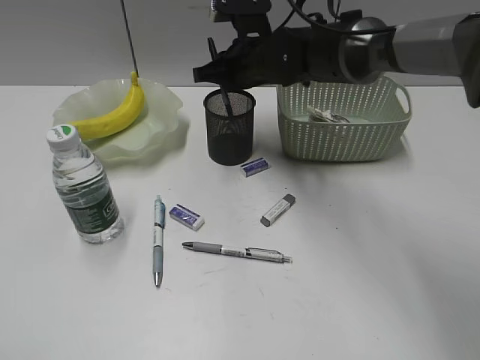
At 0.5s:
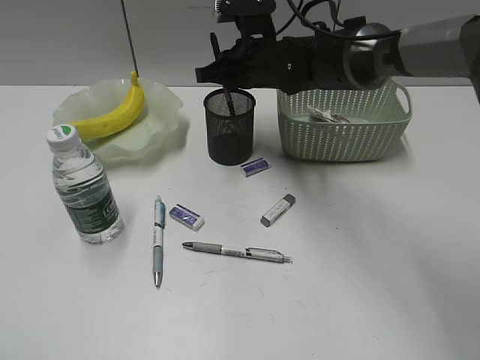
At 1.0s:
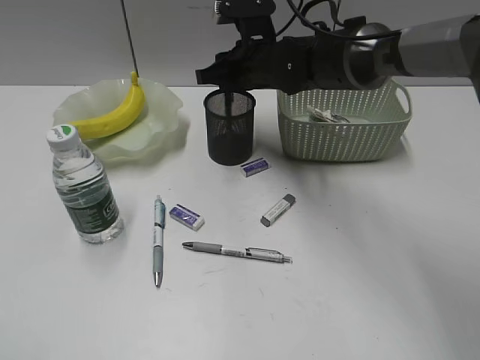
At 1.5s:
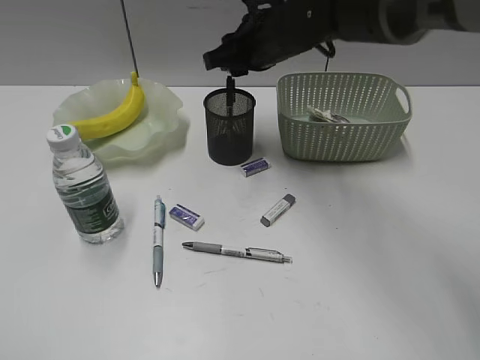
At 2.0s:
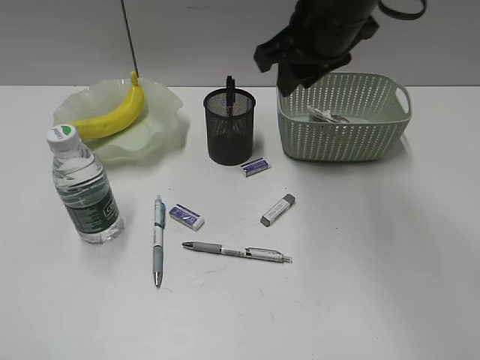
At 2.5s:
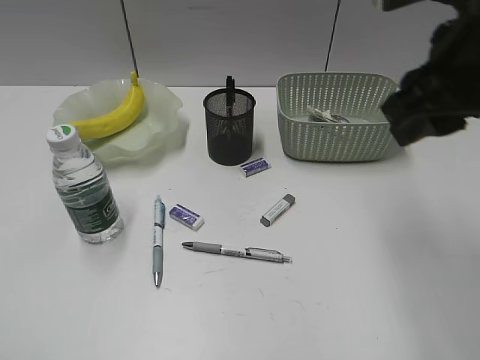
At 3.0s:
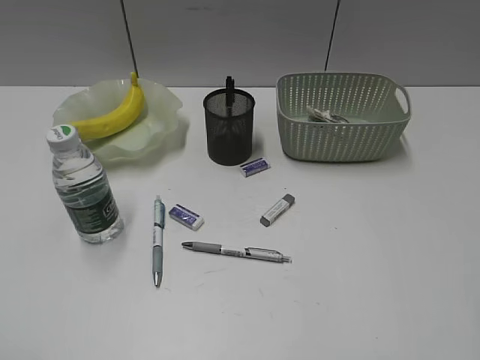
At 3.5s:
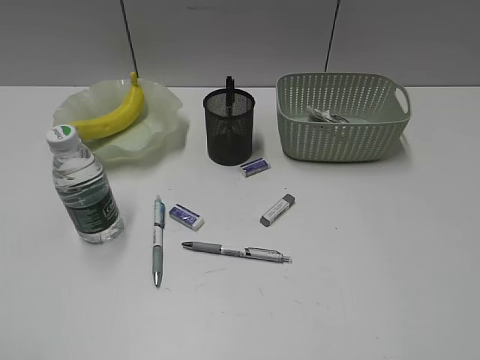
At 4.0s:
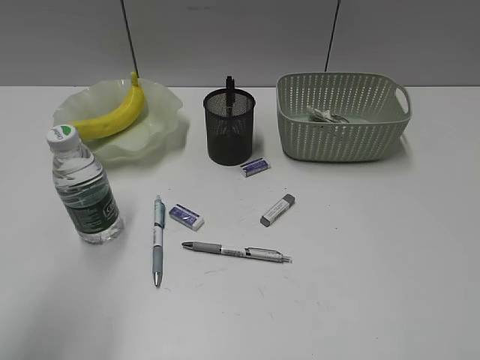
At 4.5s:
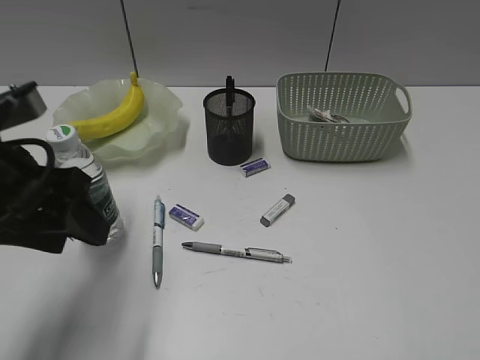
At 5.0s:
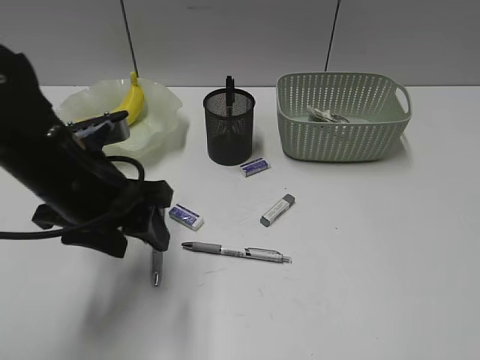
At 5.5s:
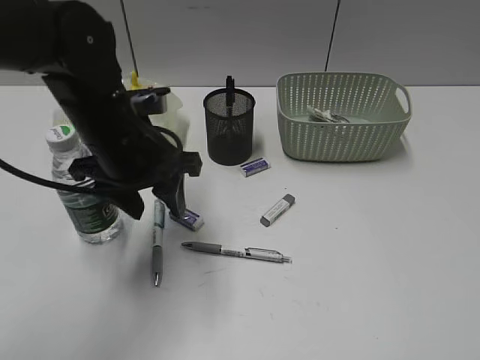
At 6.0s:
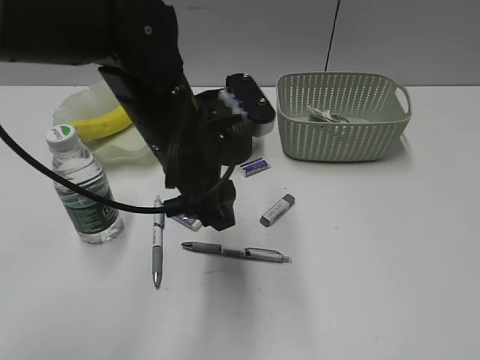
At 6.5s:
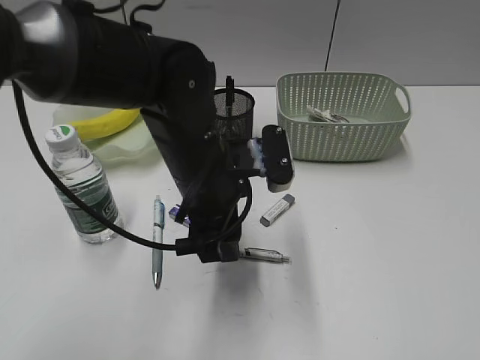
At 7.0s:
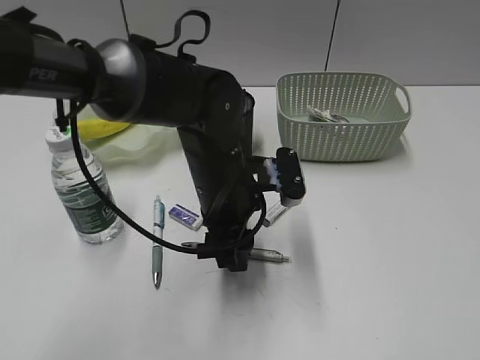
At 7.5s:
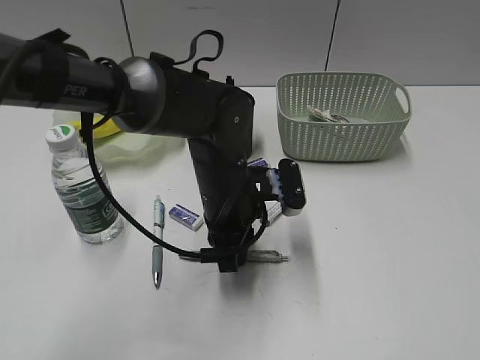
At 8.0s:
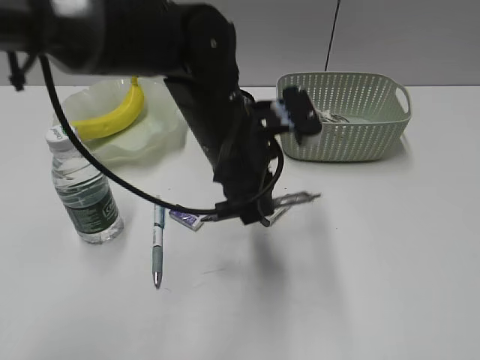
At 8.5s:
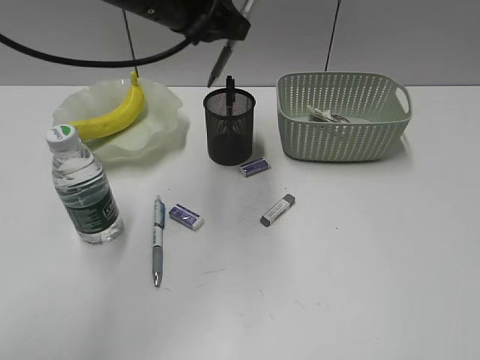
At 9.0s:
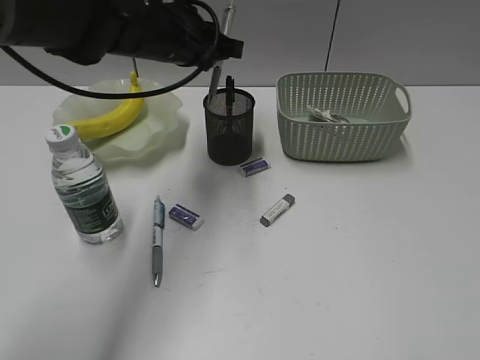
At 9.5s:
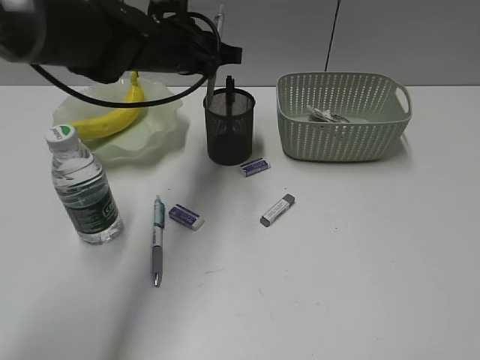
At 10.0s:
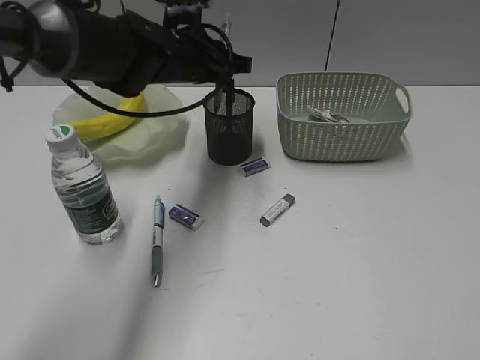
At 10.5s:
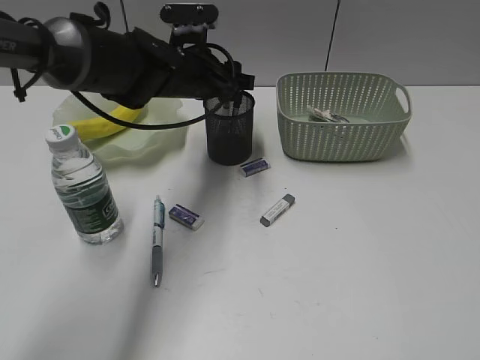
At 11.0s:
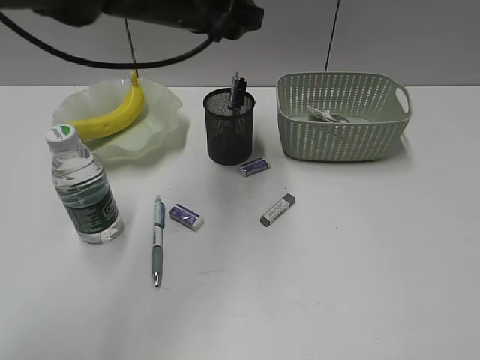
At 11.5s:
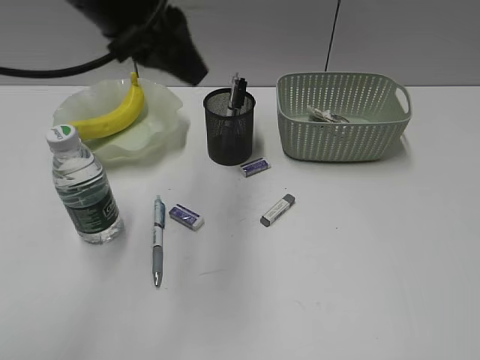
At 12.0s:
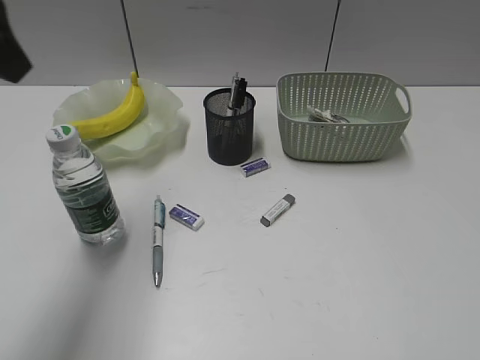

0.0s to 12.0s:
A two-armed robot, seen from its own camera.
Step, 1.5s to 7.5s: Grasp the gray pen with left gripper.
Step, 8.0s to 10.5s: Place the gray pen in pen holder with left gripper.
0.0s to 2.0s: The right gripper shifts some 15 cm upward, backward and to the right, and opens.
2.0s to 4.0s: The left gripper moves forward and to the right, approximately 10 cm. The right gripper heads backward and to the right, covering approximately 40 cm.
4.0s to 6.0s: The left gripper goes roughly 30 cm to the right, forward and downward.
6.0s to 8.0s: The left gripper travels downward and back again, about 10 cm each way, and closes its fingers.
8.0s to 10.0s: The left gripper is displaced forward and to the left by about 15 cm.
10.0s to 12.0s: The left gripper heads backward, upward and to the left, covering some 30 cm, and opens, then closes once more.

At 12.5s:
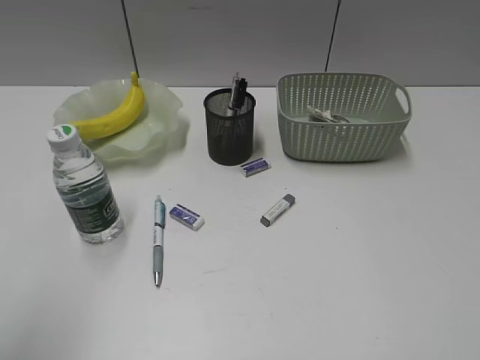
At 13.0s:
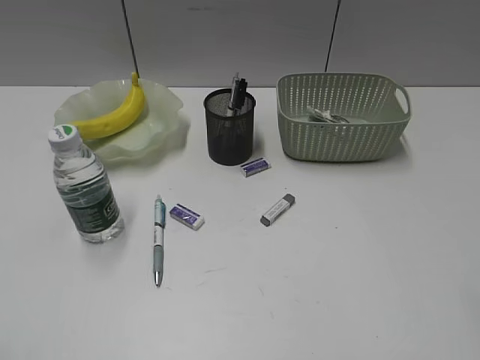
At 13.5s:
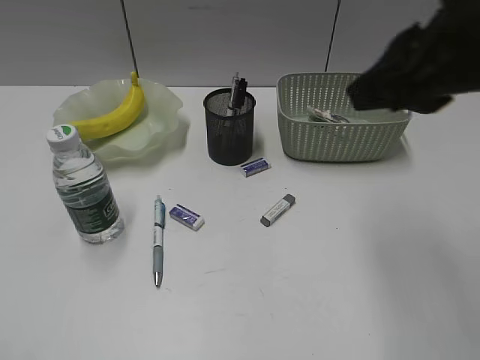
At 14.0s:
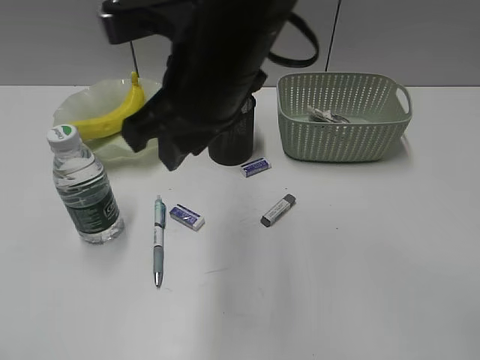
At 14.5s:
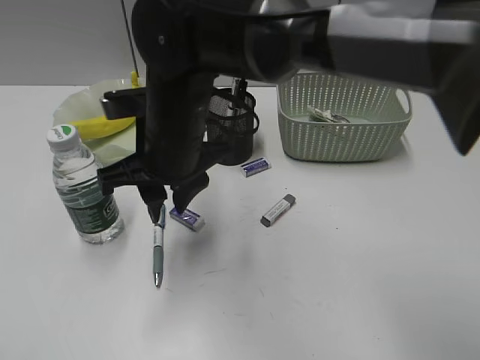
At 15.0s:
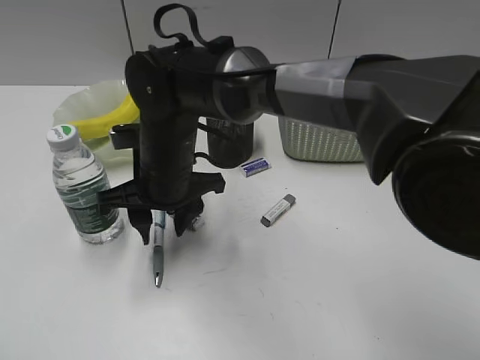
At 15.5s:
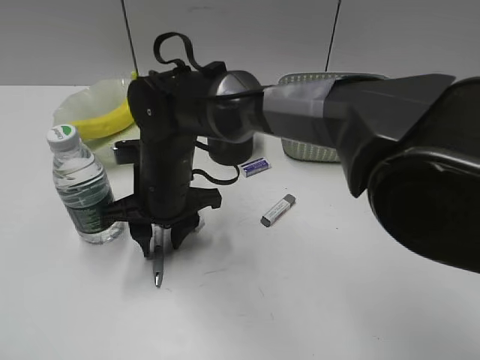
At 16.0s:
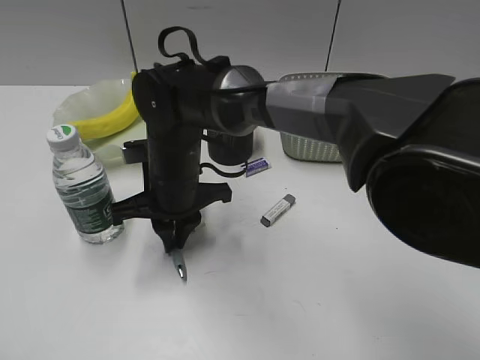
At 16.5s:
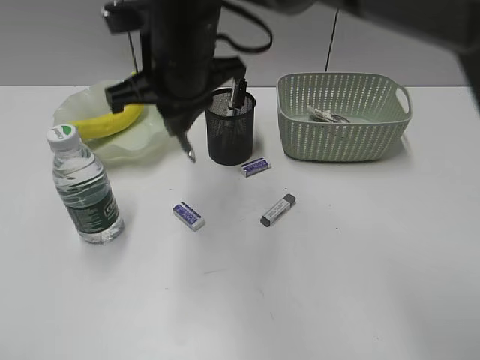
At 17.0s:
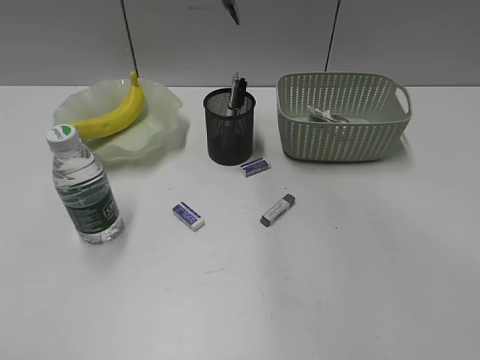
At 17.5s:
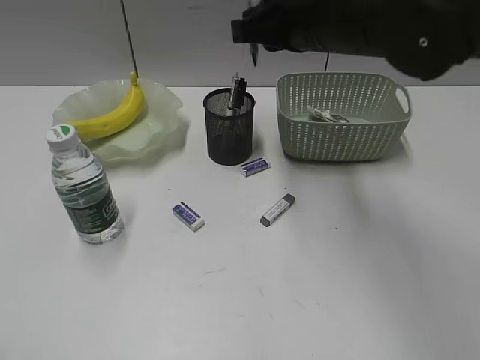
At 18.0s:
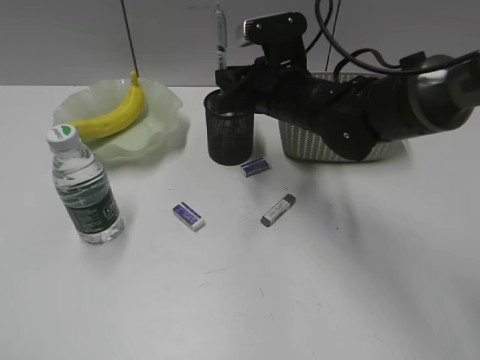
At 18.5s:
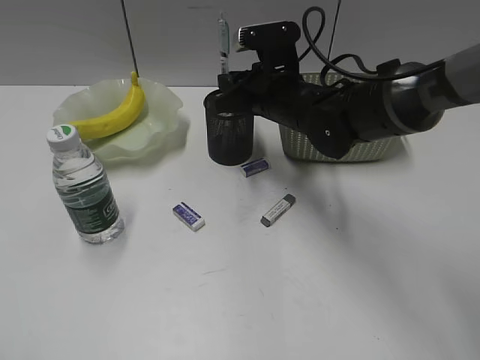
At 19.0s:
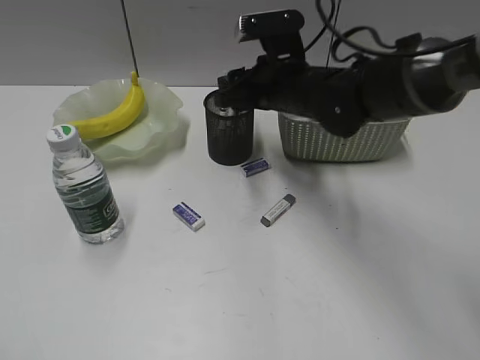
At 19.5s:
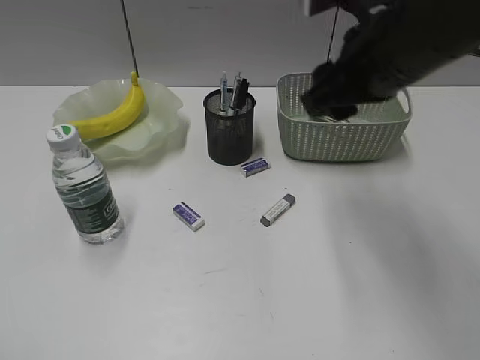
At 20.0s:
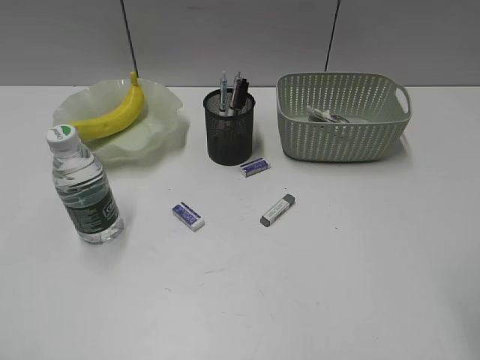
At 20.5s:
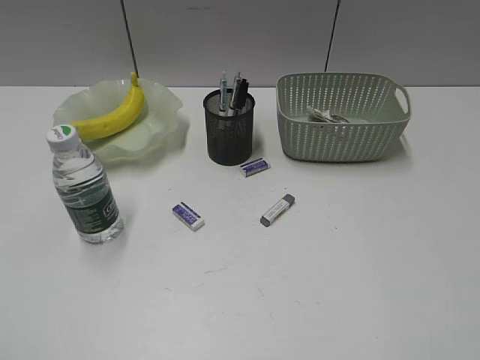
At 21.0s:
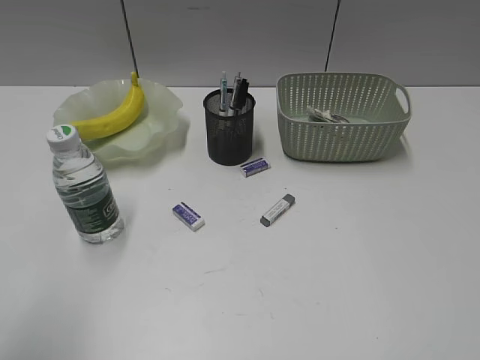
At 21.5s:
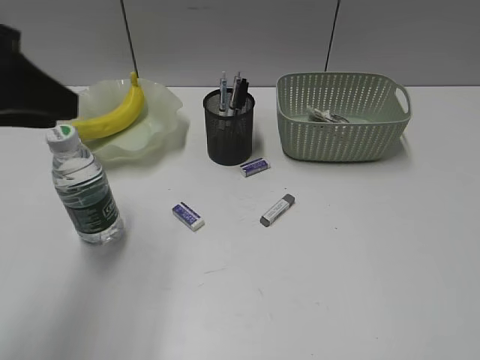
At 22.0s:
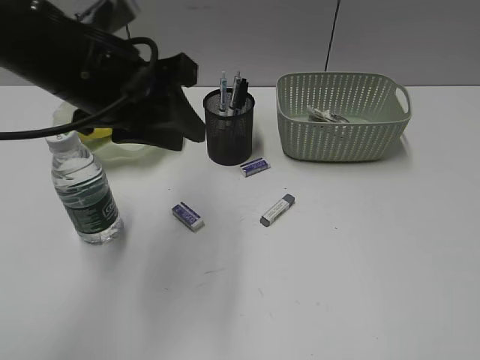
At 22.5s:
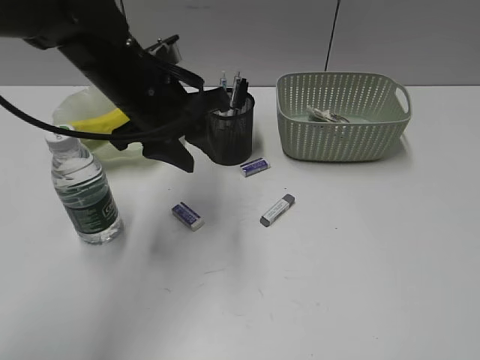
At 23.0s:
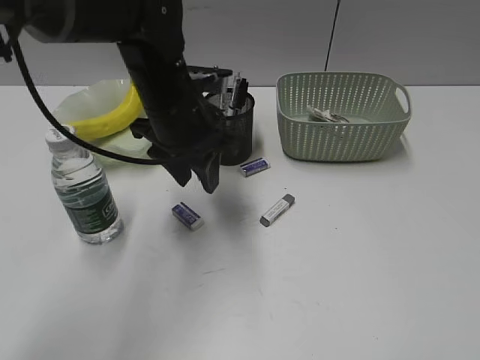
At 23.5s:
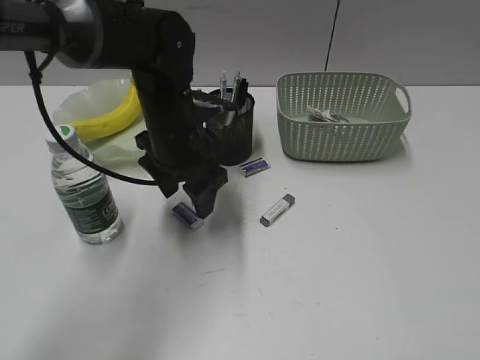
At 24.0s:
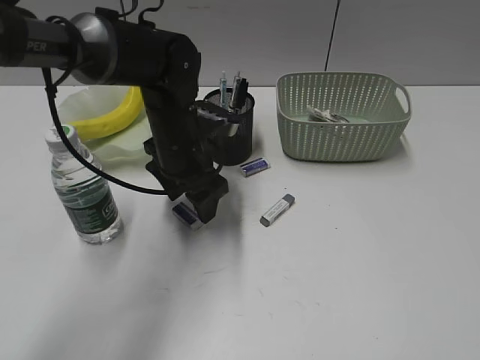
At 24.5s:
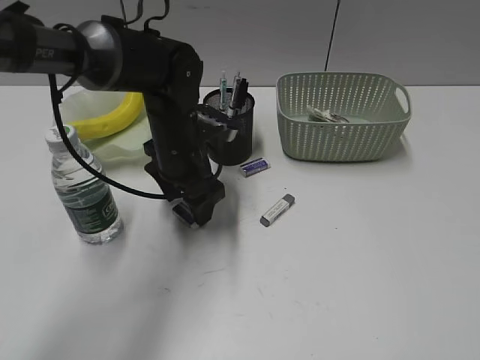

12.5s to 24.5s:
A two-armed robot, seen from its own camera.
Step, 12.5s to 15.5s: Grasp the blue pen with right gripper.
Step, 16.0s to 18.5s: Place the blue pen in pen holder with right gripper.
12.5s to 14.5s: The left gripper heads backward and downward, covering approximately 10 cm. The right gripper moves to the left and forward, approximately 50 cm.
14.5s to 16.5s: The right gripper heads upward, covering approximately 5 cm, and closes up.
16.5s to 18.5s: The right gripper goes roughly 15 cm to the right, downward and forward.
18.5s to 20.5s: The right gripper is displaced backward and to the right by about 40 cm, and opens up.
20.5s to 22.5s: The left gripper heads forward and to the right, covering some 40 cm.
22.5s to 24.5s: The left gripper travels downward by roughly 10 cm, and opens its fingers.

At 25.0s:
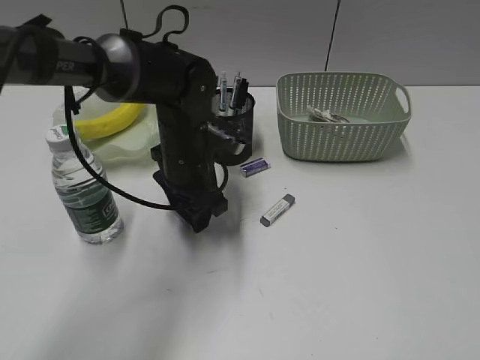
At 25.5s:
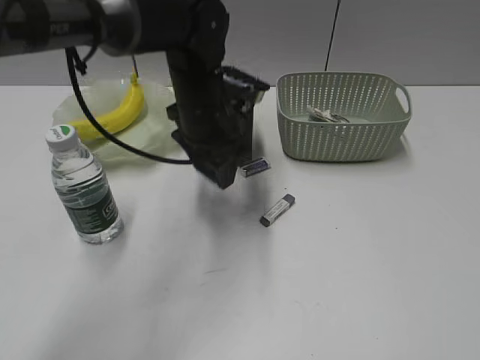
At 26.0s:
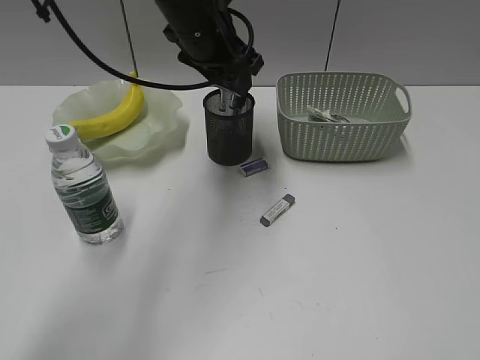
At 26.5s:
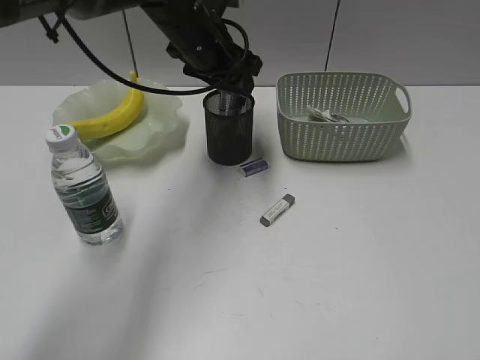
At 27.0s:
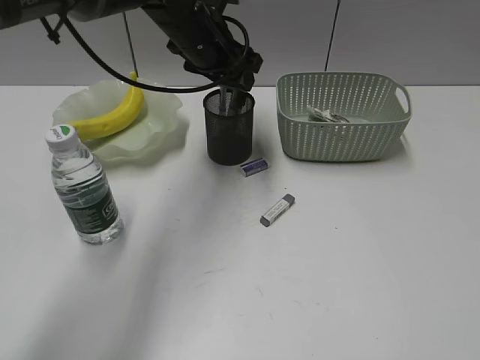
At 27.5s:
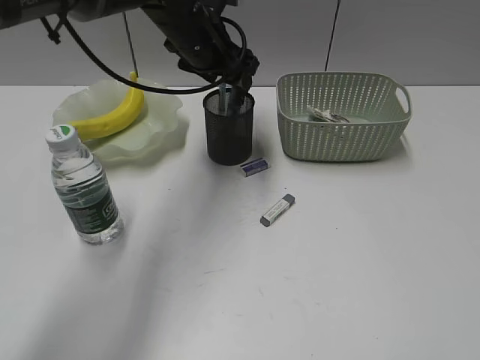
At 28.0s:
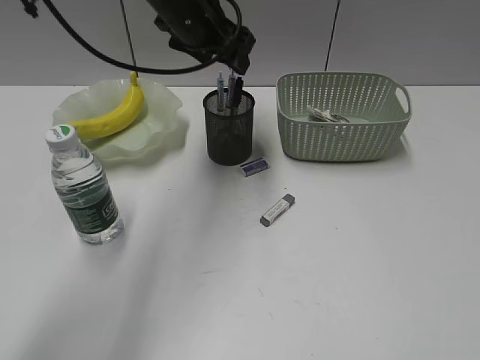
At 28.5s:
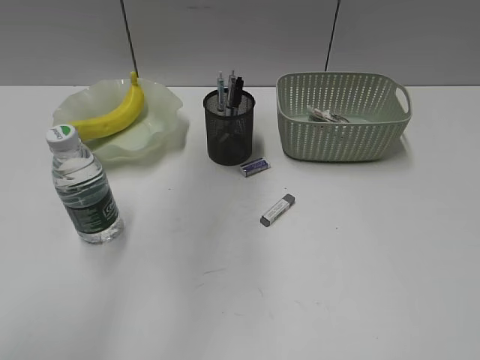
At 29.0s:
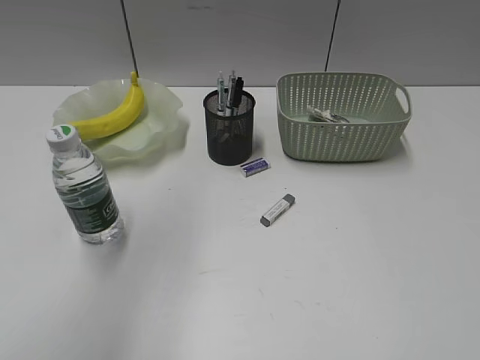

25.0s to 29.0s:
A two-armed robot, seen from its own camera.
Step, 25.5s to 27.5s: Place the eraser in pen holder with left gripper.
25.0s to 27.0s: The left gripper moves upward and forward, approximately 15 cm.
27.0s to 29.0s: The left gripper moves backward, upward and to the left, approximately 35 cm.
